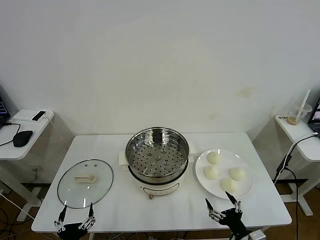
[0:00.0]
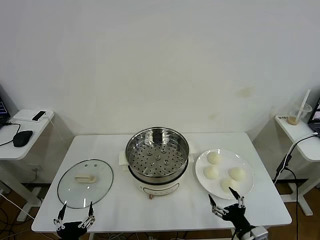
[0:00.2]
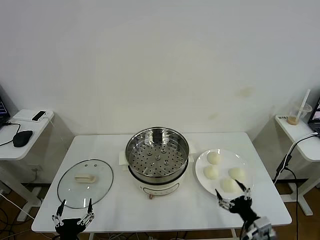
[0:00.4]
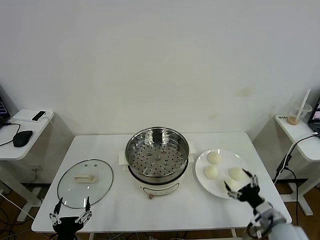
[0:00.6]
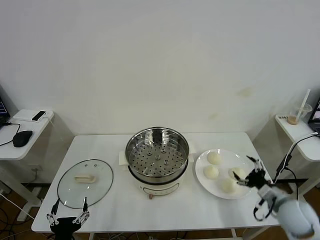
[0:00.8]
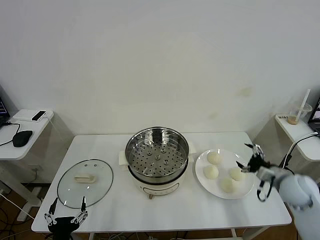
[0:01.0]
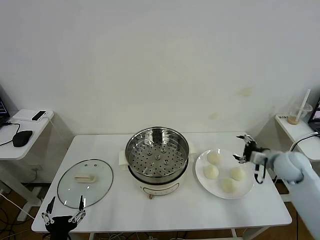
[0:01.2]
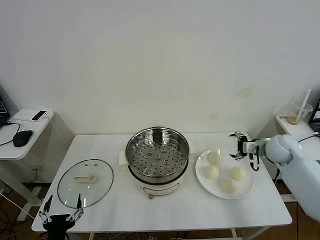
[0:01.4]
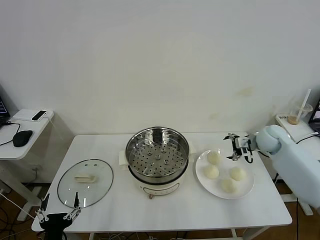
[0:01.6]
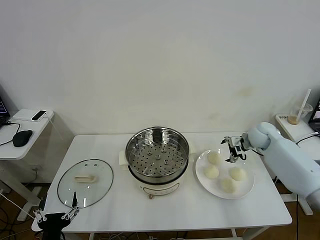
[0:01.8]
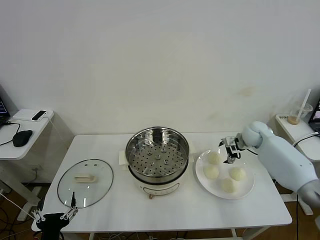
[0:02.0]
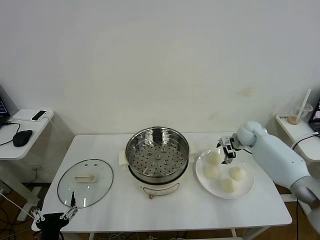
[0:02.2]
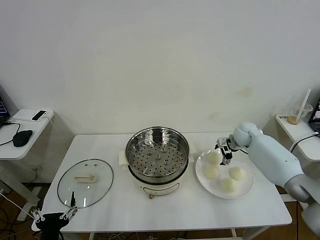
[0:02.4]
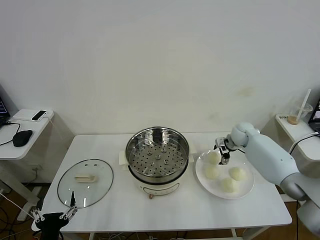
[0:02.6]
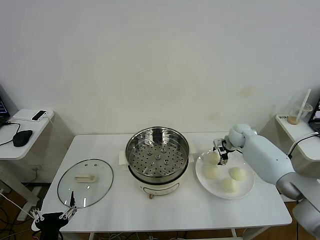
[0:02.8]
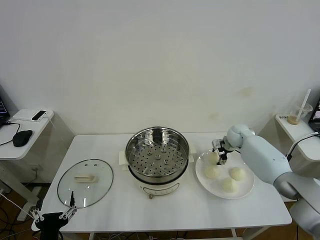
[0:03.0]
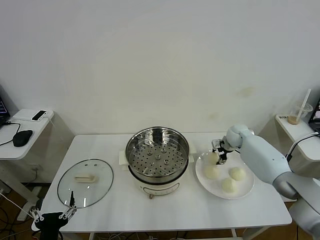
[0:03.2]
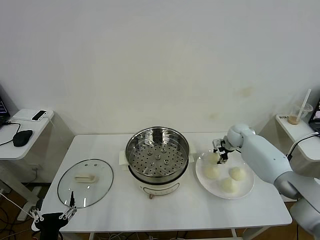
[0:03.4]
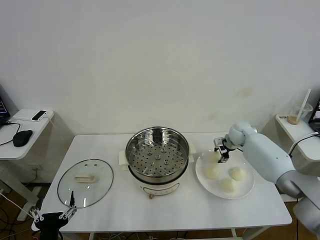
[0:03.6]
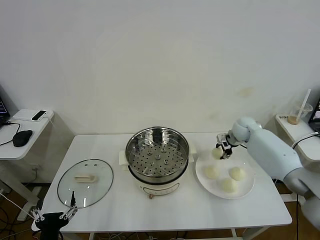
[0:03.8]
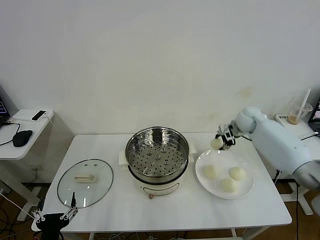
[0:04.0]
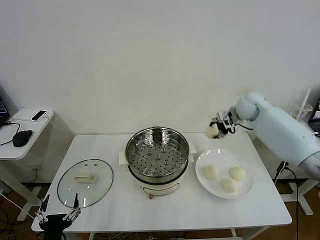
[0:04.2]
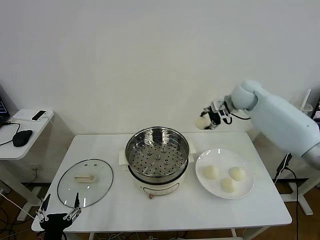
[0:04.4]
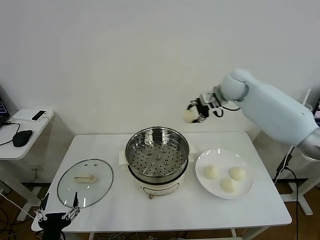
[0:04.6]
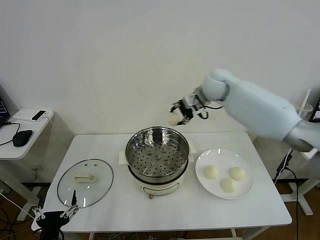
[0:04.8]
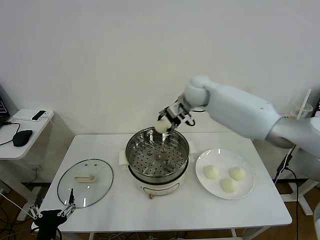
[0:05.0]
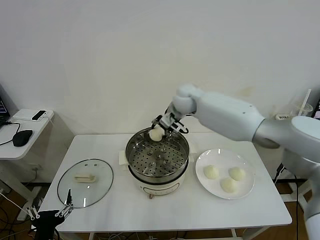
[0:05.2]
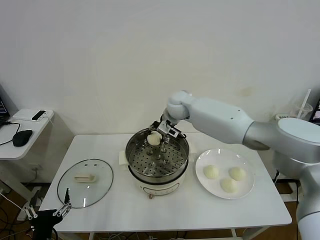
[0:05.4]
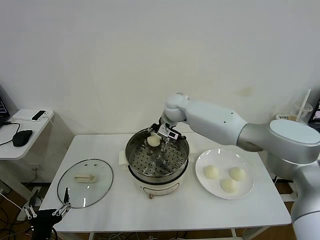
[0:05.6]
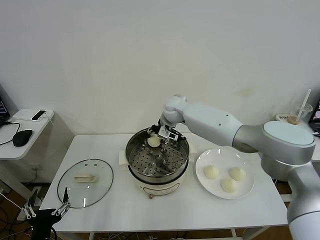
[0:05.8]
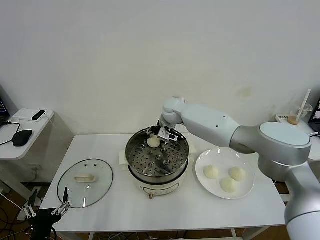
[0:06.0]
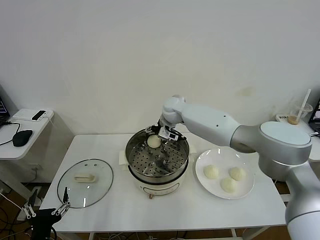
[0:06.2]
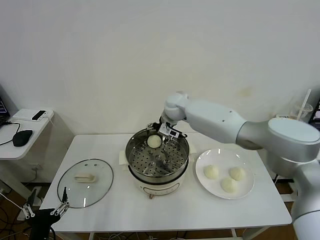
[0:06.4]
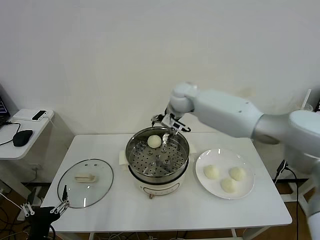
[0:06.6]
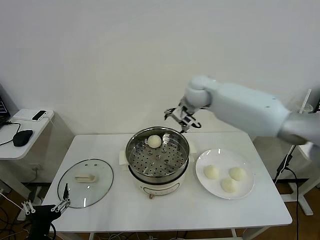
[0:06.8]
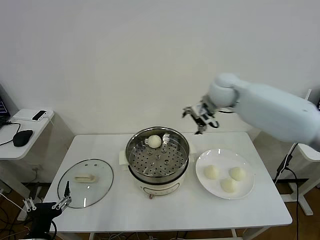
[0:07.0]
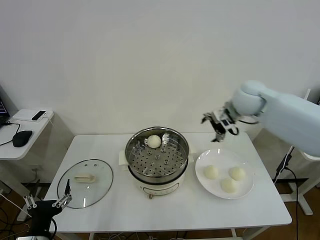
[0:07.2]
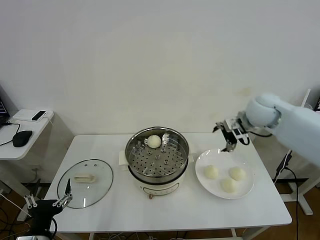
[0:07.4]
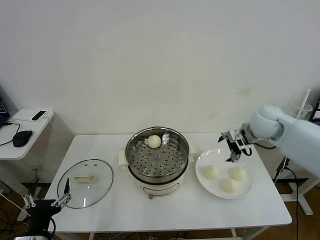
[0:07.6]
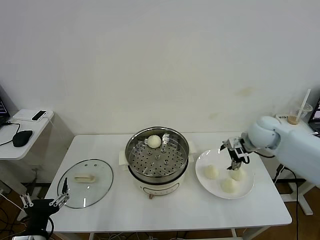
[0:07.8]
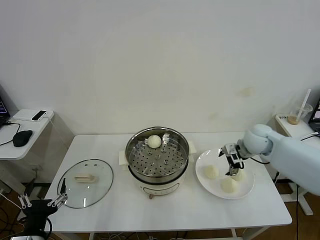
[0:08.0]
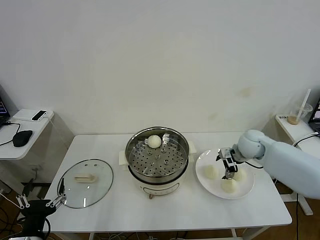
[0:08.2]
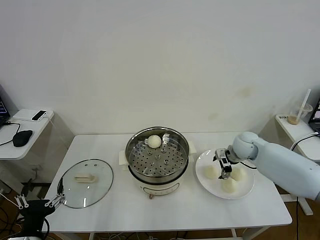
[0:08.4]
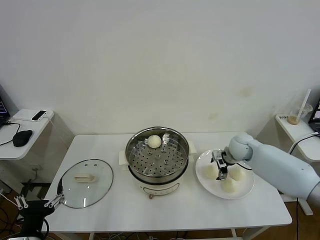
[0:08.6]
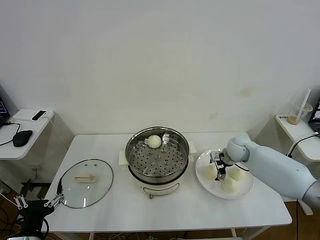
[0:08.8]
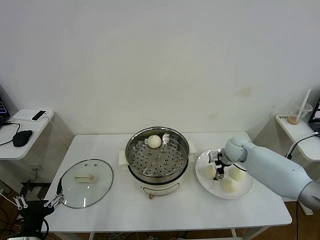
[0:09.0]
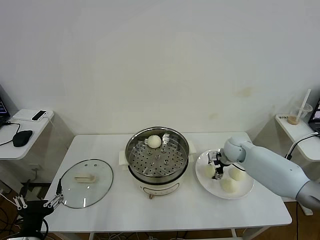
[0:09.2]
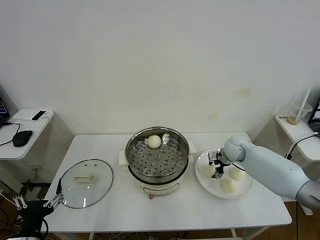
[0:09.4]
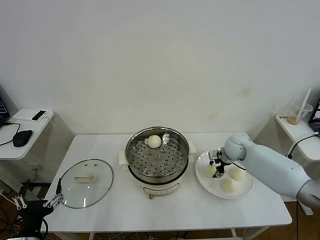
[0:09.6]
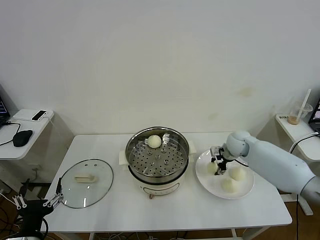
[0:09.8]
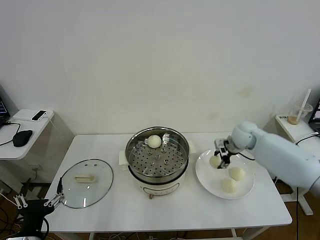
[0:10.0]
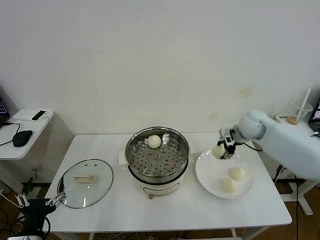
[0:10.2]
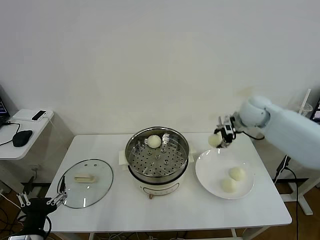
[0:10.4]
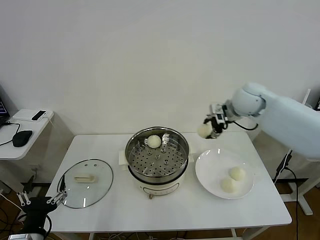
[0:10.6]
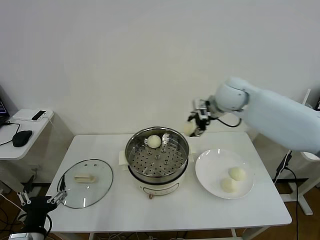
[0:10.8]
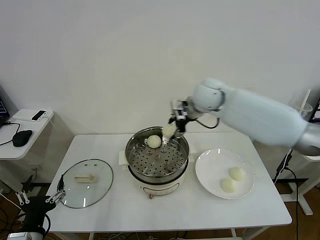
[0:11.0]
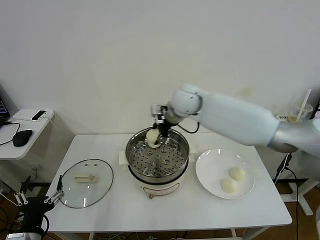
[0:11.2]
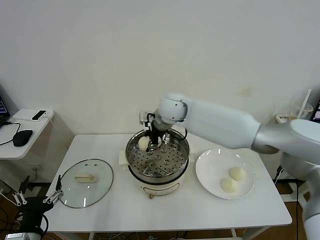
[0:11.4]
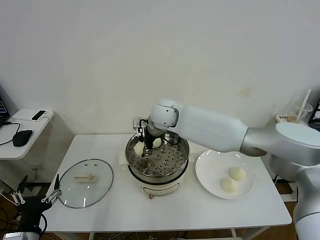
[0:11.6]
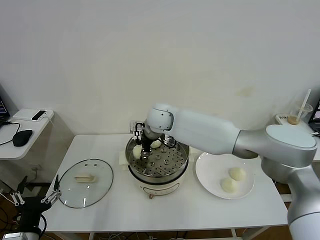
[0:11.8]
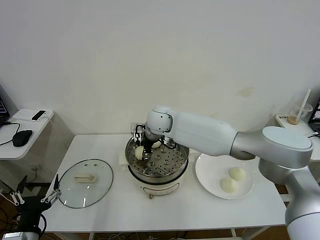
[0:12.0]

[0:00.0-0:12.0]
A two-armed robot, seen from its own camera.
Task of the whole recording: take steamed baozi put them in steamer then cover it.
Step, 0:00.0 to 0:03.2: Grasp the baozi in the plate with right gripper.
Step, 0:03.6 to 0:06.4: Place the baozi on the steamer with right gripper.
Step, 0:06.6 to 0:09.4: Grasp the baozi in the plate with right gripper.
0:01.6 to 0:03.0: The right gripper travels forward, downward and to the left by some 15 cm, and closes its fingers.
0:03.0 to 0:04.4: The right gripper is displaced upward by approximately 20 cm, and closes its fingers.
0:04.4 to 0:06.0: The right gripper travels to the left by some 25 cm.
0:06.0 to 0:07.6: The right gripper is displaced to the right and backward by about 30 cm, and opens.
0:07.6 to 0:09.0: The right gripper shifts about 15 cm downward.
0:09.0 to 0:10.4: The right gripper heads upward, covering about 15 cm, and closes.
0:10.4 to 0:12.0: The right gripper shifts some 30 cm to the left.

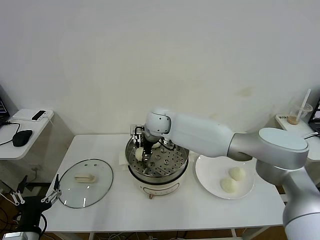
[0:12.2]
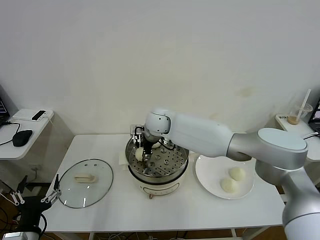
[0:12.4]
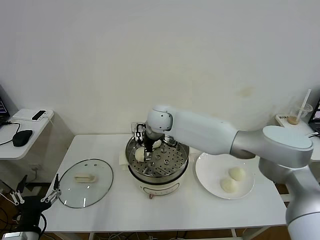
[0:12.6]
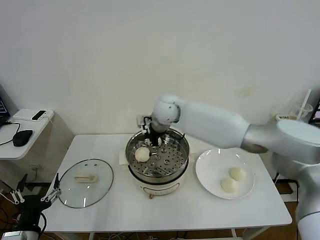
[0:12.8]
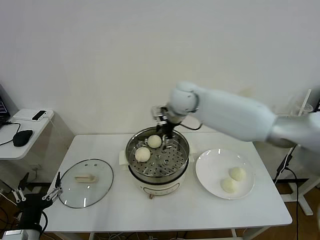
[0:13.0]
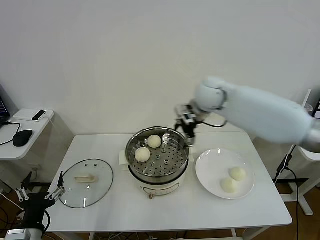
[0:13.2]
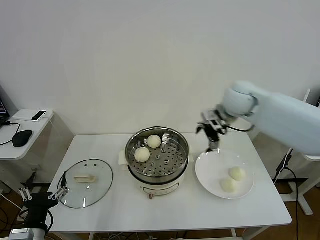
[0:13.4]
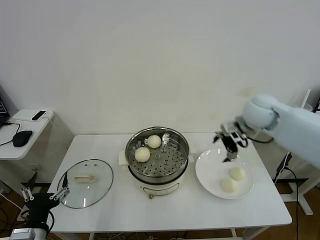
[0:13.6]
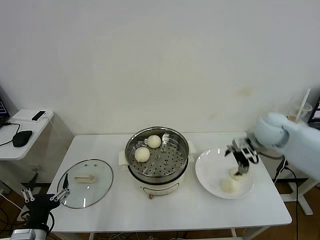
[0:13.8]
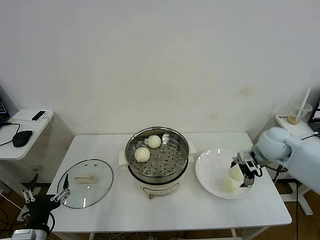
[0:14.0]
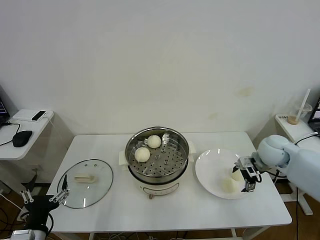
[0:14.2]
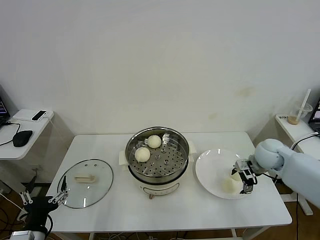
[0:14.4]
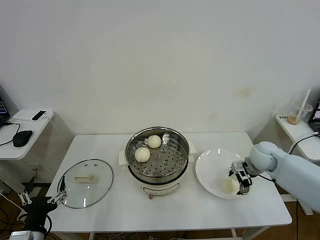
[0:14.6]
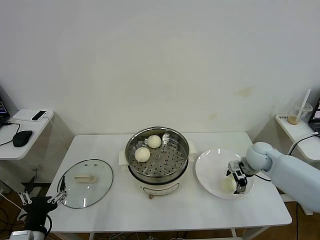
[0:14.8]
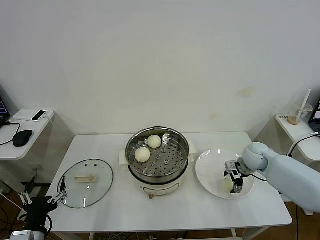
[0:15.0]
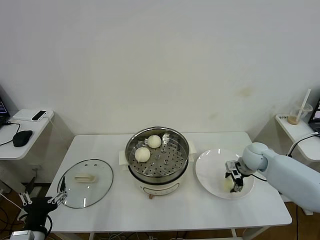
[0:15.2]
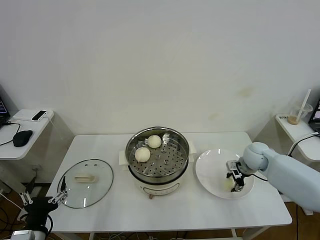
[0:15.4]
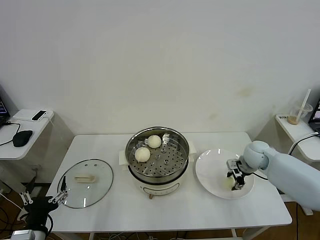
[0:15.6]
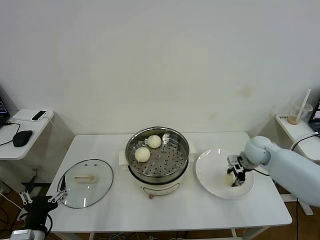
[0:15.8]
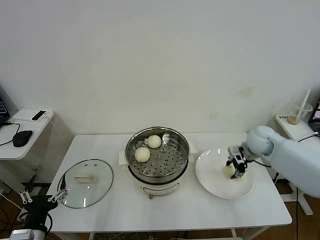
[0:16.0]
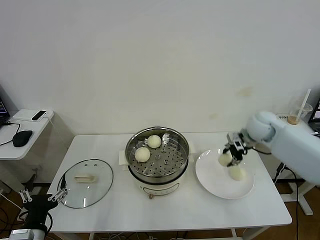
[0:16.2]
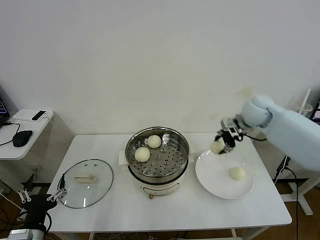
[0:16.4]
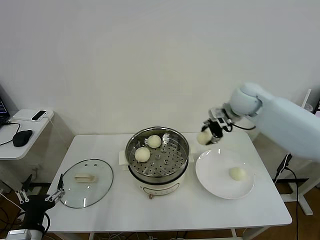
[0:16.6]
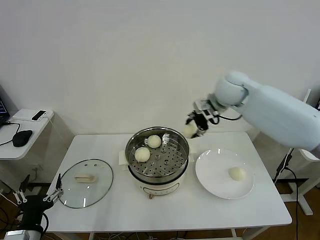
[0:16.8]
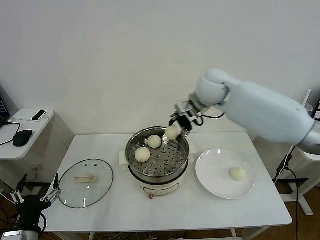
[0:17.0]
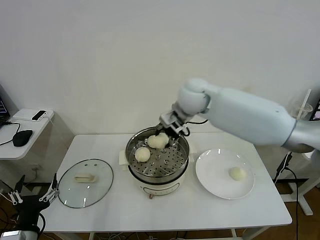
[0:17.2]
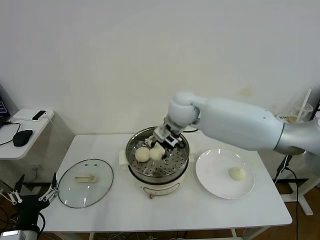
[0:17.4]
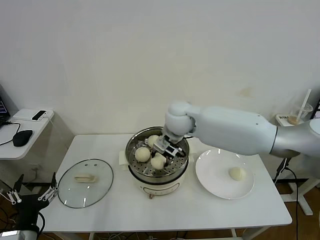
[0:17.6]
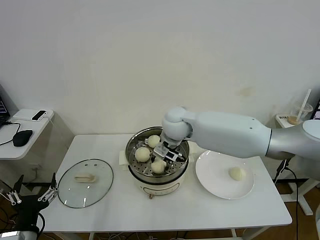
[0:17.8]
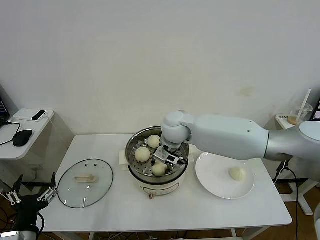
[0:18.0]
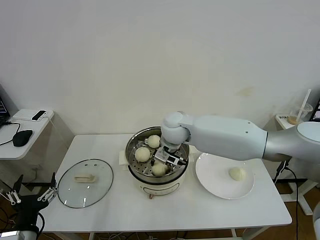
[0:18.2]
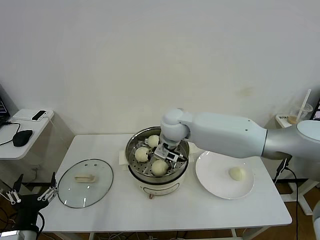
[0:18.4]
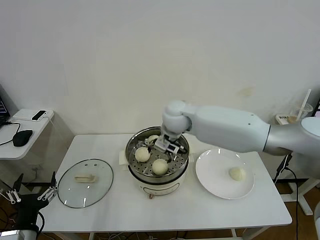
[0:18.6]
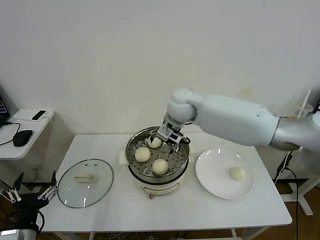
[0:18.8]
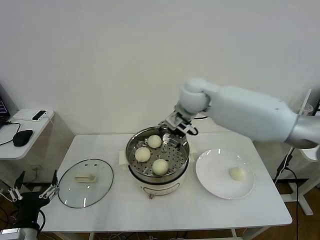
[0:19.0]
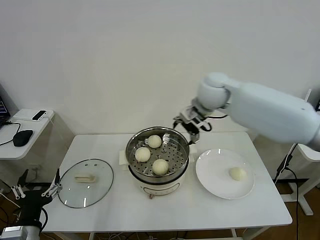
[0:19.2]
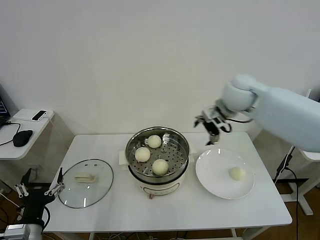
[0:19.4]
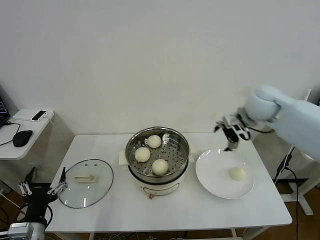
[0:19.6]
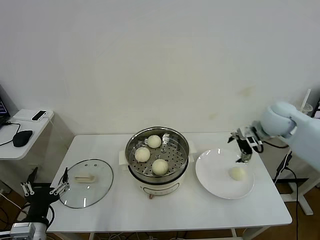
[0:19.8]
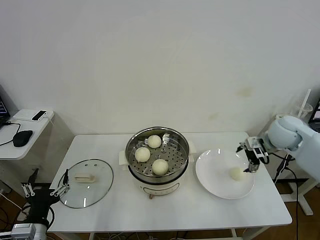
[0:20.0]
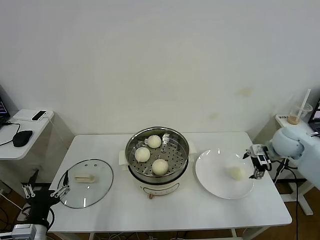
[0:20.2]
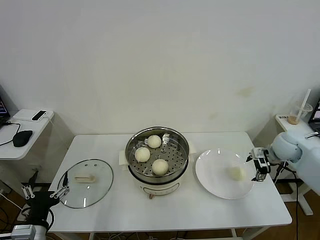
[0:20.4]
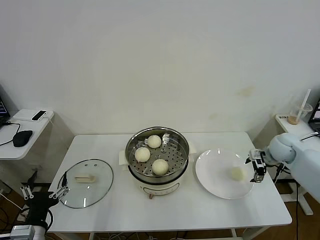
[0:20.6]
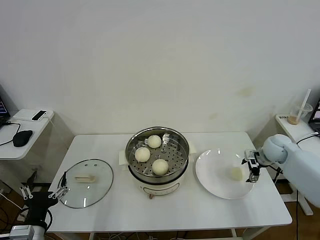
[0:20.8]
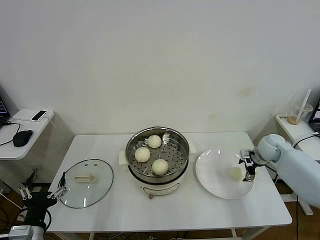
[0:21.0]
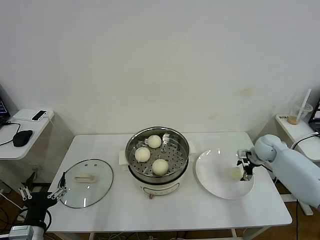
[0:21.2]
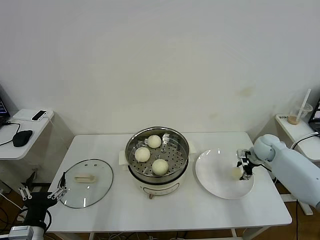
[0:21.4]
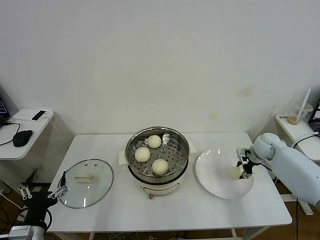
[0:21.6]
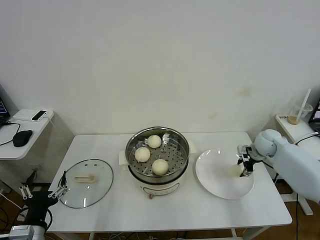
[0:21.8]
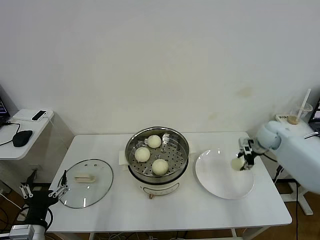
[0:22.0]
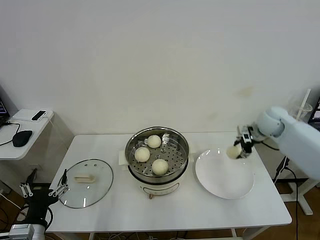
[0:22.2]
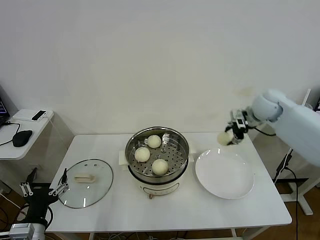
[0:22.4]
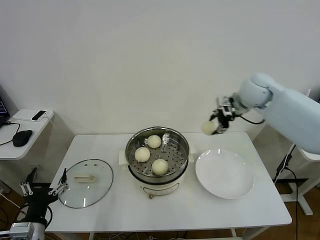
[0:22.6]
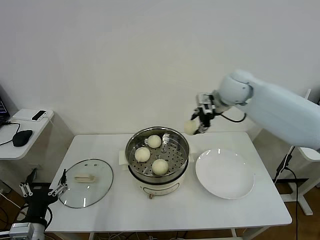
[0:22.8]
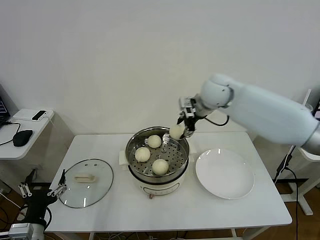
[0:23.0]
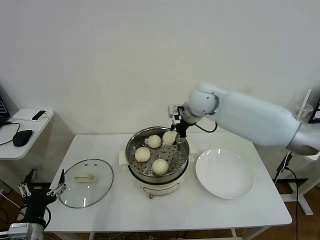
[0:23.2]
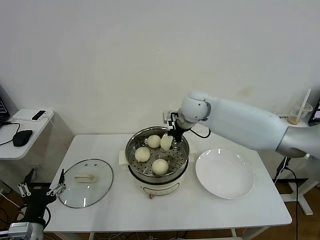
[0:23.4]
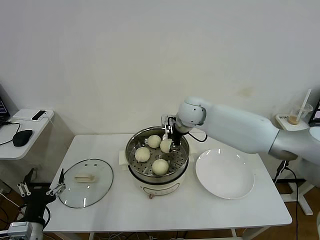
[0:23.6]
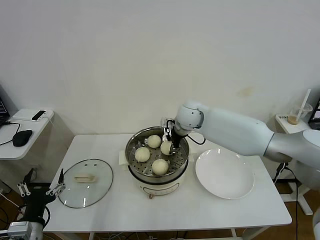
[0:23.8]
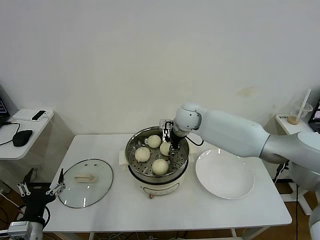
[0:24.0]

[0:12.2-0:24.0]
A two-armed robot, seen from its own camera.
Task of the whole recording: take steamed baozi put them in steamer then cover it.
Step, 0:12.8 to 0:15.4: Grasp the baozi in the plate with right gripper.
Step, 0:15.6 to 0:18.4: Place the baozi on the steamer with right gripper.
Step, 0:18.6 to 0:21.6: Grasp the baozi in the plate with right gripper.
0:12.2 to 0:13.6: The right gripper goes some 30 cm to the right, and opens up.
0:13.6 to 0:15.2: The right gripper goes roughly 20 cm downward, and closes up.
0:15.2 to 0:16.6: The right gripper goes about 20 cm upward and to the left, and closes its fingers.
0:16.6 to 0:18.2: The right gripper is displaced to the left by roughly 20 cm.
0:18.2 to 0:19.6: The right gripper heads to the right, covering about 25 cm, and opens up.
0:19.6 to 0:21.0: The right gripper is displaced downward and to the right by some 25 cm.
0:21.0 to 0:22.6: The right gripper goes some 25 cm upward and to the left, and closes.
0:22.6 to 0:24.0: The right gripper moves to the left and downward, some 20 cm.
